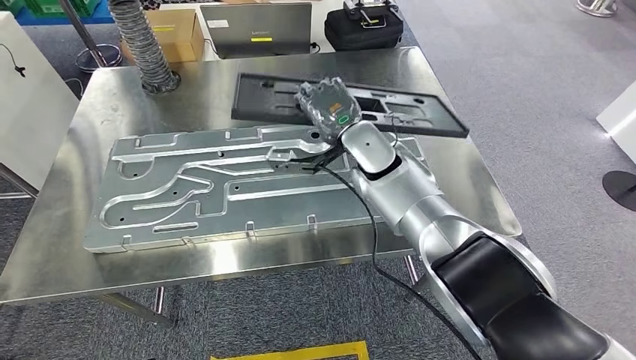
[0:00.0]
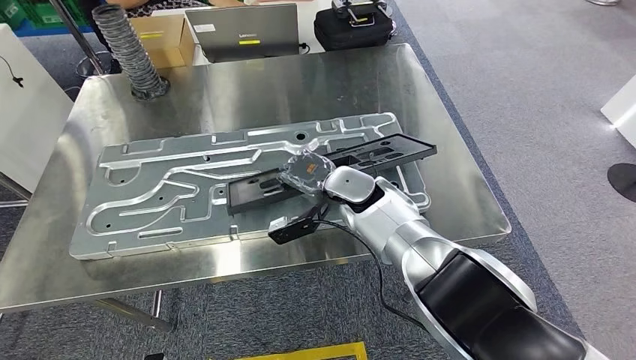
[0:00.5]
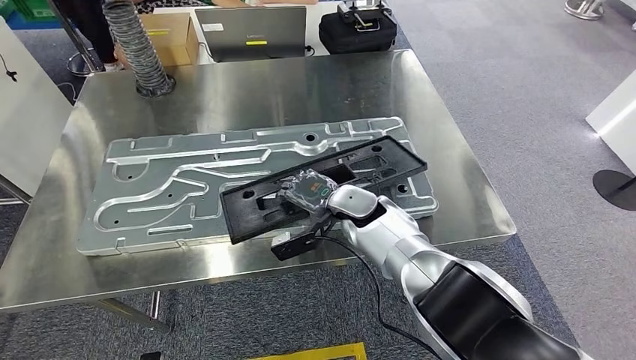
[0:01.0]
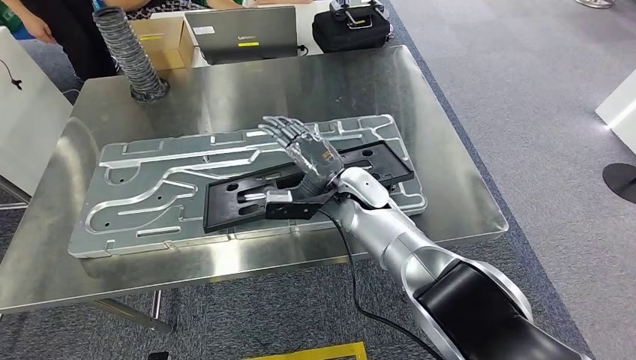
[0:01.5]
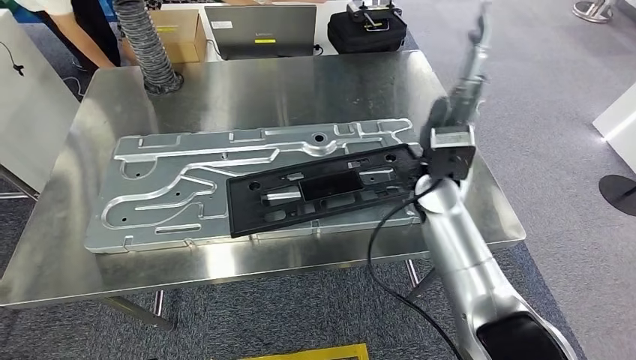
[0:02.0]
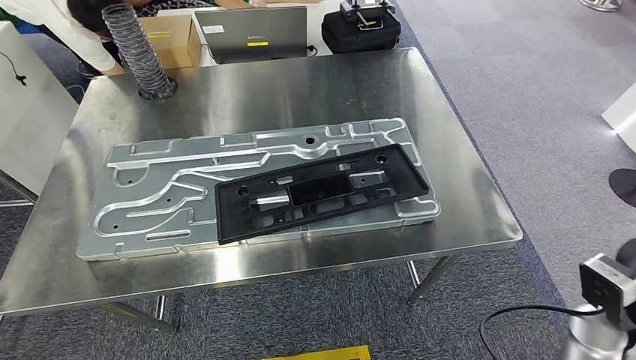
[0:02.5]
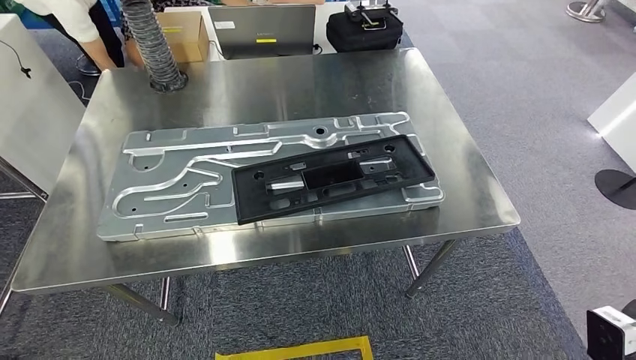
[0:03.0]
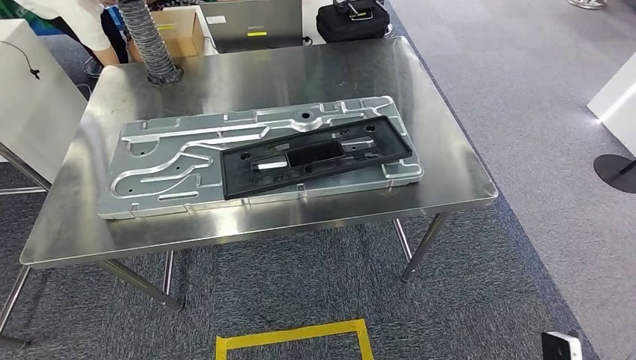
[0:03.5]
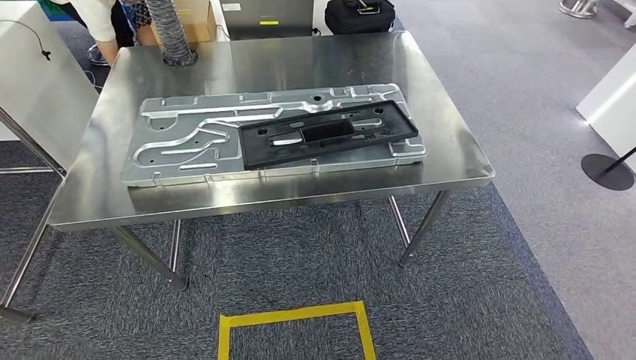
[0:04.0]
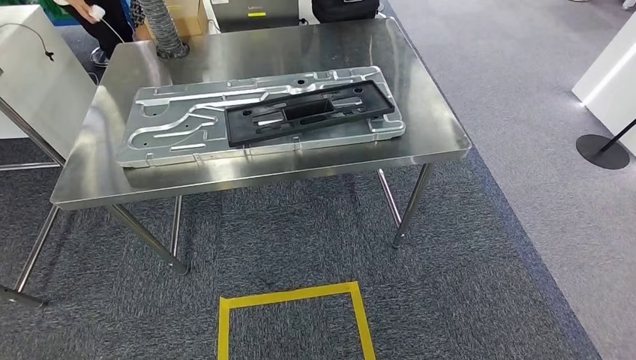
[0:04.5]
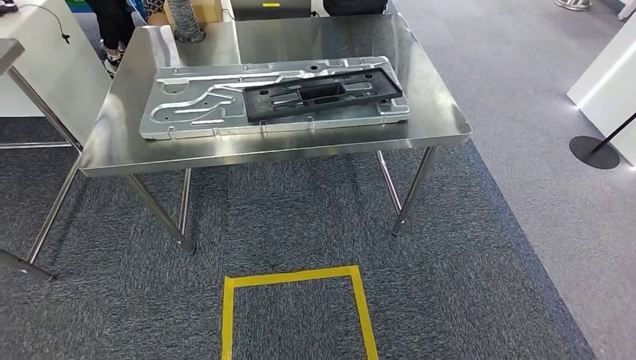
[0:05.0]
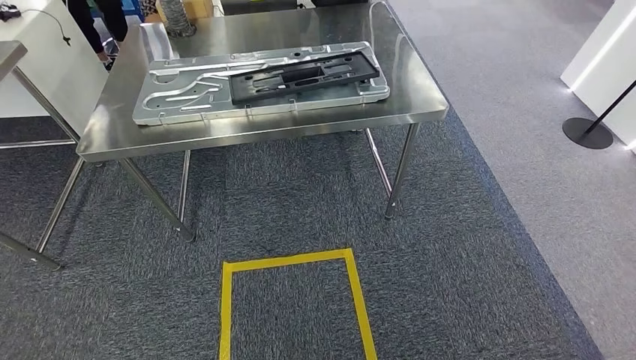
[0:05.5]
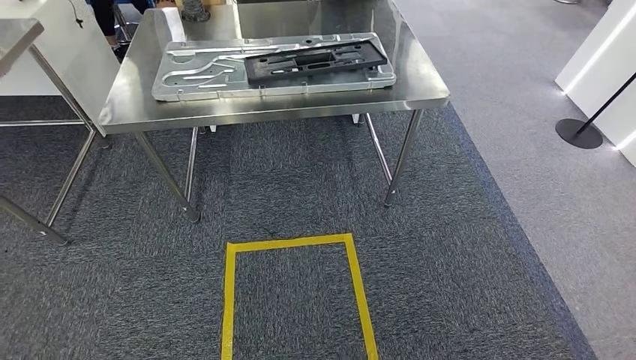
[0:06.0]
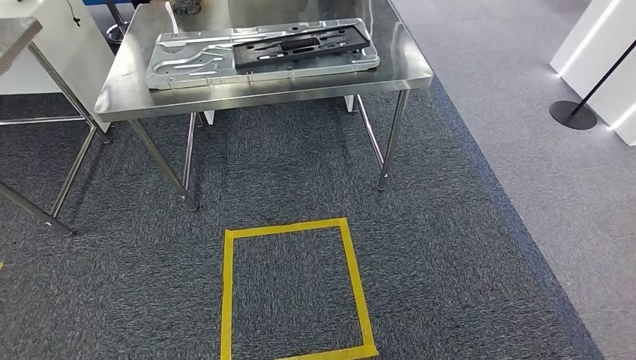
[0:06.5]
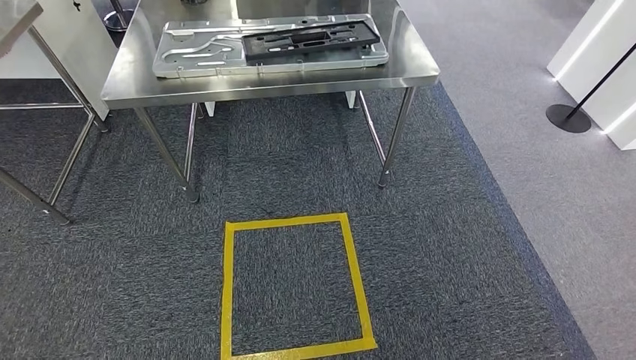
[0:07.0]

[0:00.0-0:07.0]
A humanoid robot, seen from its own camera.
Step, 0:00.0 to 0:03.0: Insert the large material into the corresponding slot on the workbench.
Step, 0:03.5 to 0:07.0: Return to the initial position at the shelf.
